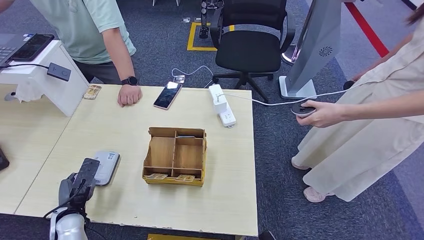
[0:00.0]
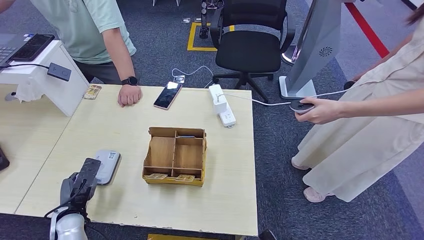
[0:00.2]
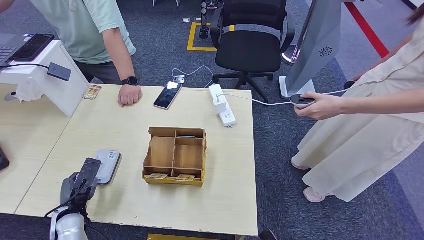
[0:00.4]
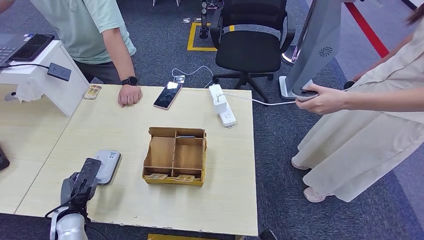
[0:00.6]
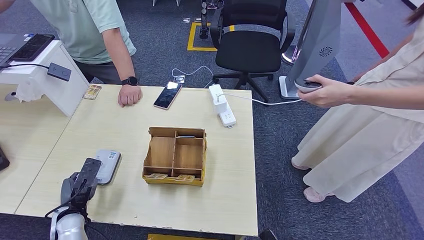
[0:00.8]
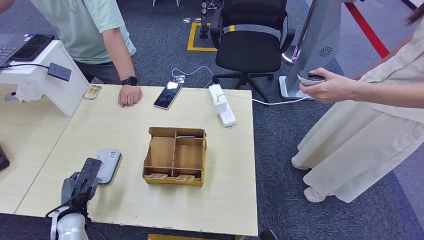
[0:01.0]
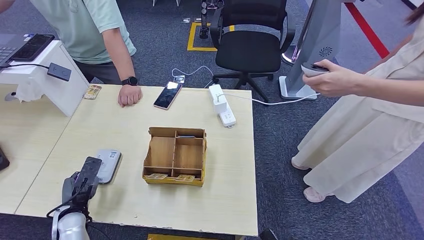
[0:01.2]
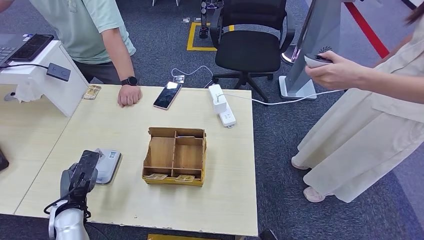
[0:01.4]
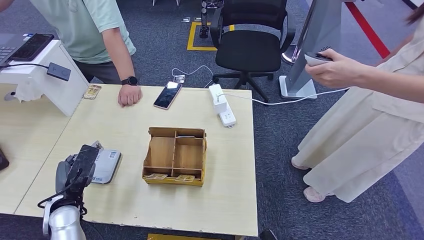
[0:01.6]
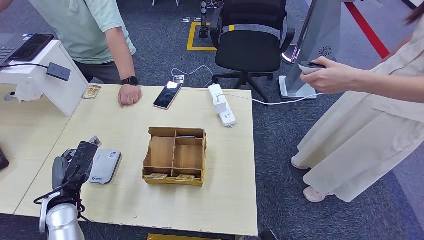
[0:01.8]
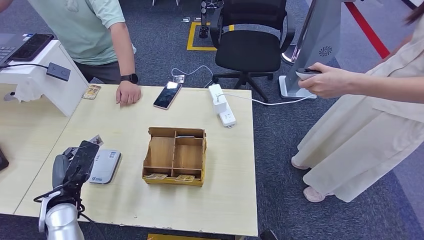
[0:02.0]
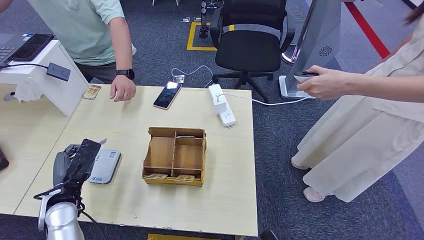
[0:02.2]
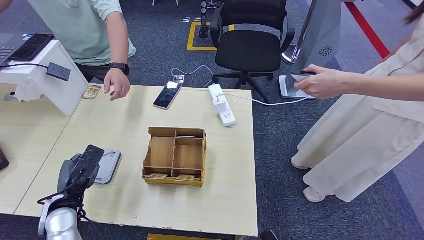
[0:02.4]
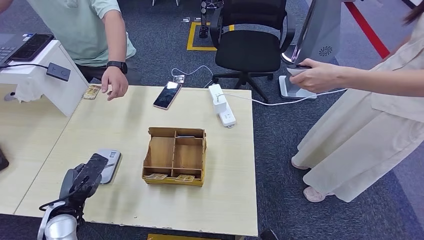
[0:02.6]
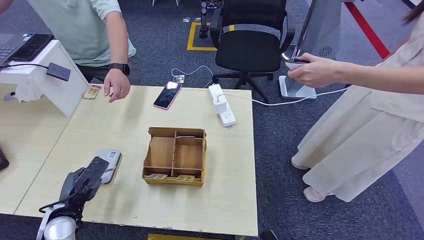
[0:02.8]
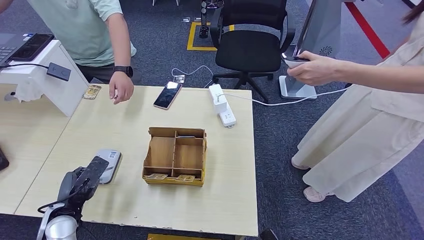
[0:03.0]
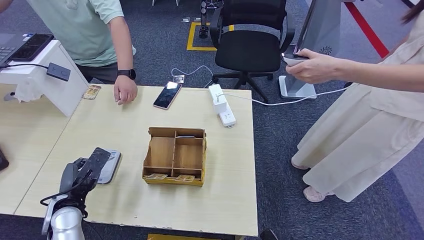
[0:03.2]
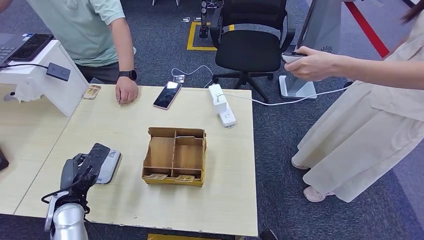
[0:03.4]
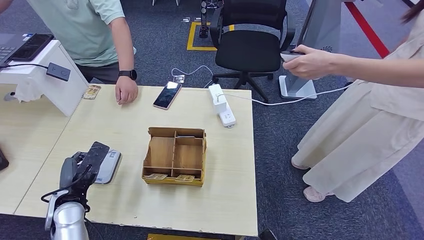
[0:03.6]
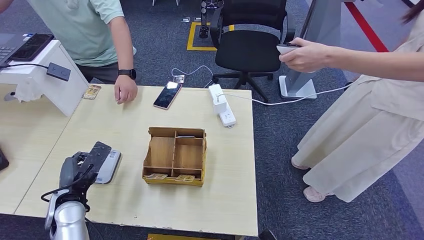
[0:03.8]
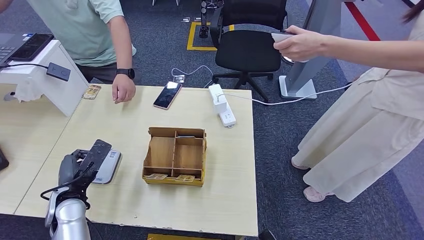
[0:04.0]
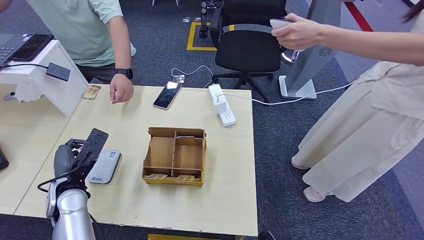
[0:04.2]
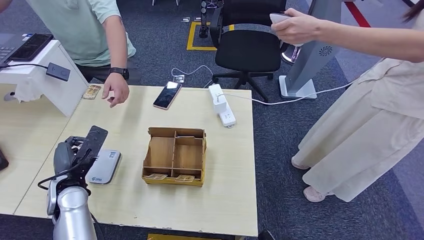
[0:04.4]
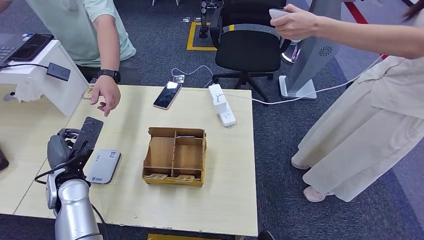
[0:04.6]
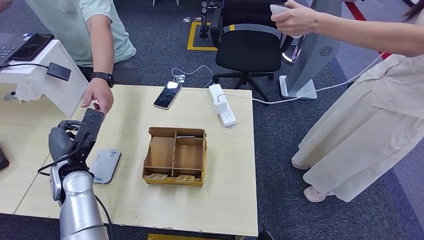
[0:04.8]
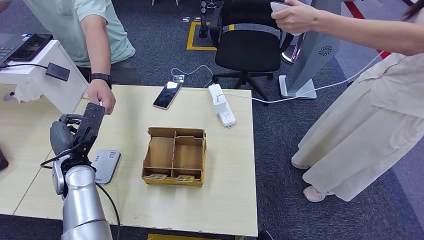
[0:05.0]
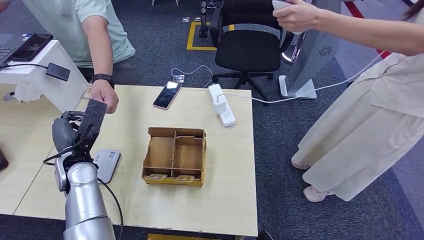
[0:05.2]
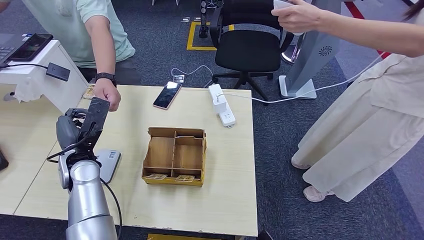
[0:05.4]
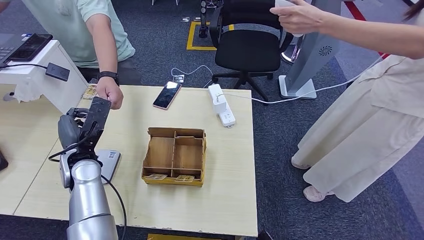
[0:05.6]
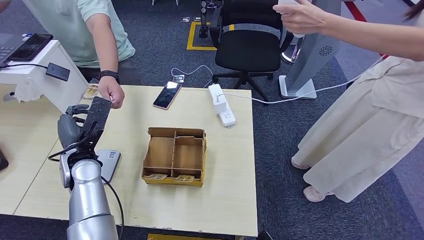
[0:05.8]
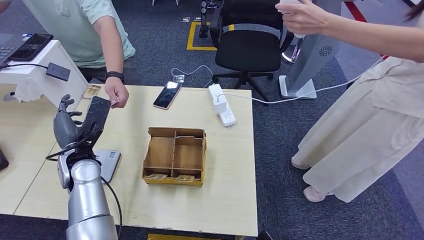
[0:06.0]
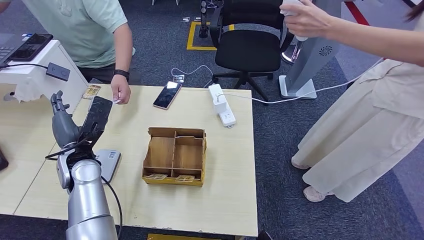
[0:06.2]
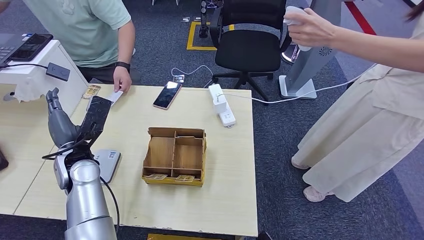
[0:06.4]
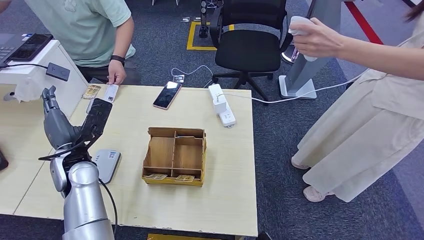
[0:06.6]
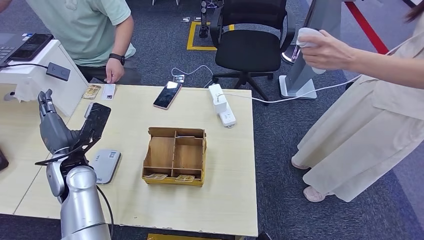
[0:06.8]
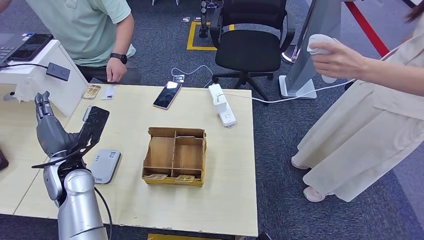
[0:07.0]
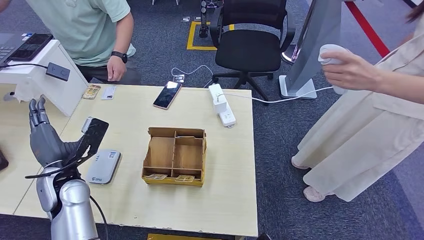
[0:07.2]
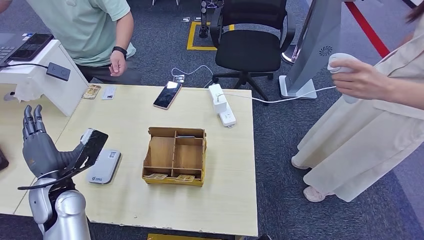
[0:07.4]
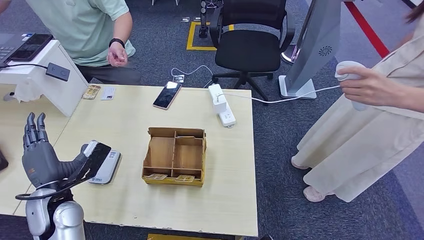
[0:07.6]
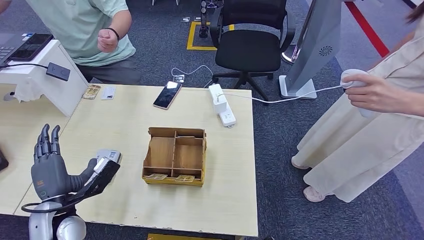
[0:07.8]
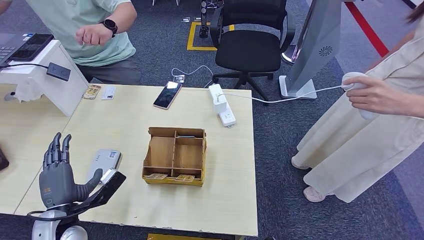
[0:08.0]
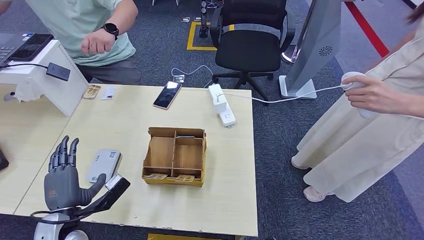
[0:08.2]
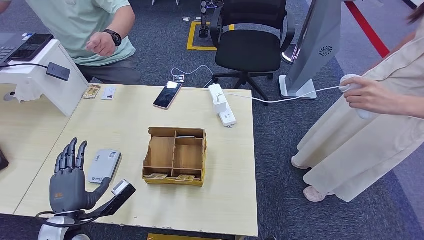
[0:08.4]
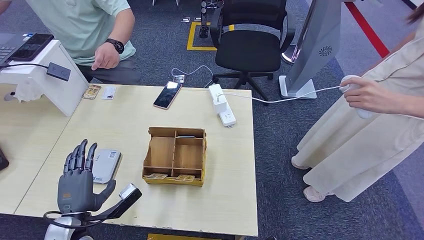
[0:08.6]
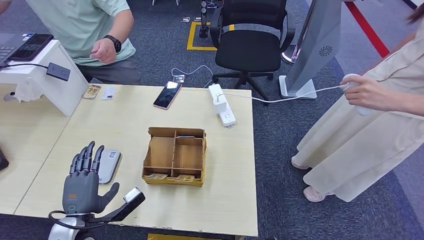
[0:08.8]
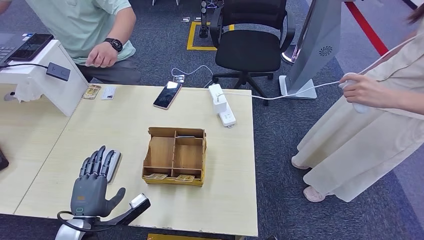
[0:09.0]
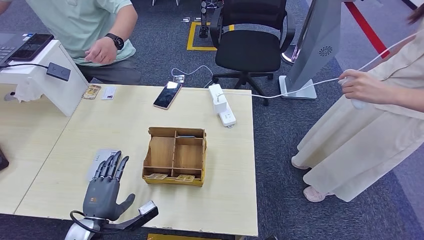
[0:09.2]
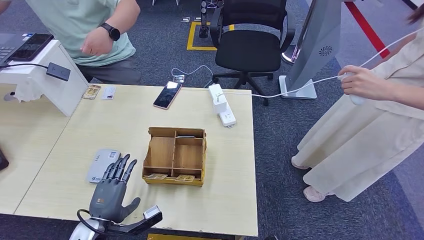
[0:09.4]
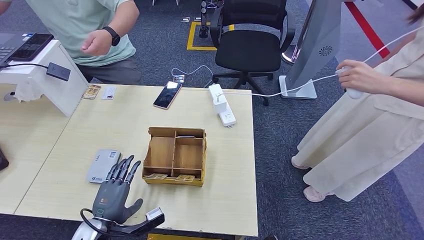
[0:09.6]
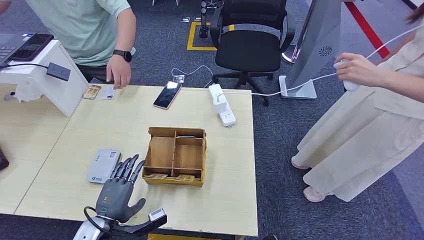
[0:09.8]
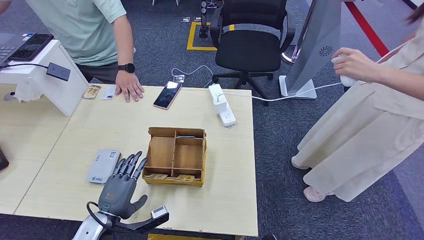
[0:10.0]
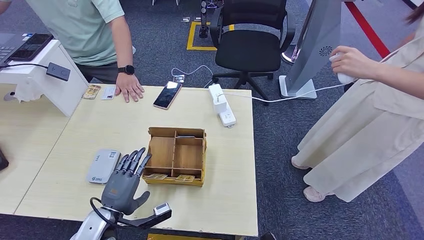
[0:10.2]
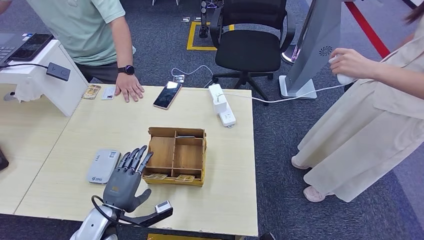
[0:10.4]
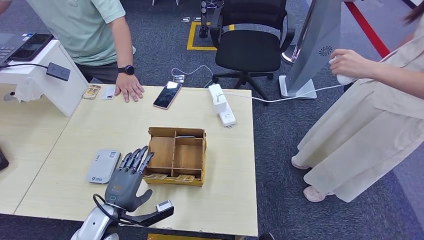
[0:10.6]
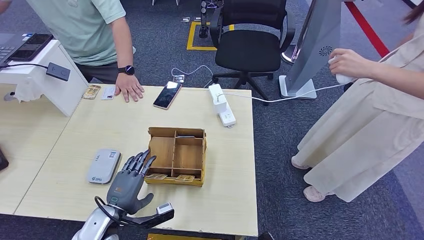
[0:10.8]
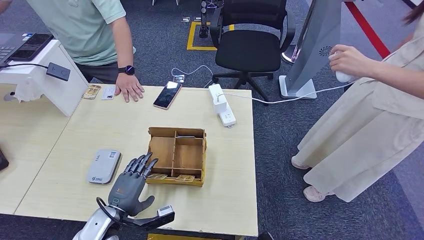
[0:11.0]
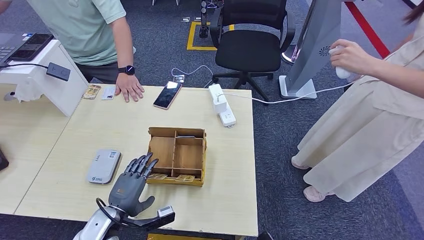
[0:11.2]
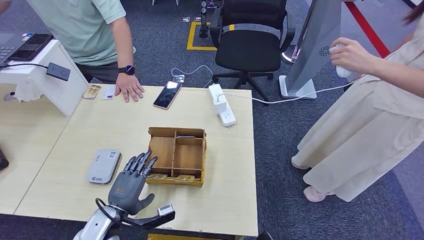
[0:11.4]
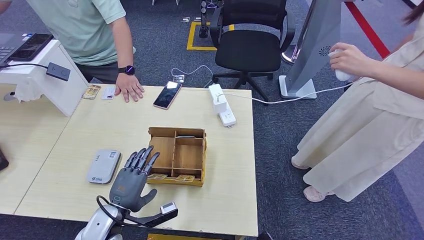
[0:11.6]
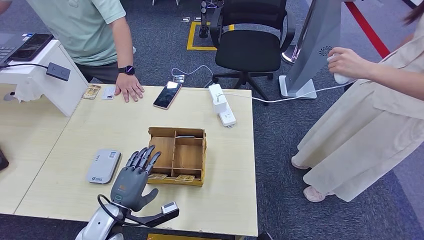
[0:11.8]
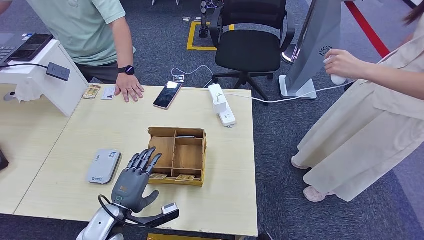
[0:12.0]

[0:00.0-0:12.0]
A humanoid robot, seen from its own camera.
Step, 0:01.2 to 0:06.0: Hand the ID card to the person.
0:00.0 to 0:01.6: The left hand shifts by roughly 5 cm.
0:01.6 to 0:03.0: The hands move only a little.
0:03.0 to 0:04.4: The left hand goes approximately 10 cm forward and upward.
0:04.4 to 0:06.0: The left hand heads forward, covering about 5 cm.
0:07.6 to 0:09.0: The left hand is displaced downward and backward by approximately 10 cm.
0:09.0 to 0:10.4: The hands stay close to where they were, moving slightly.
0:10.4 to 0:12.0: The hands make only small movements.

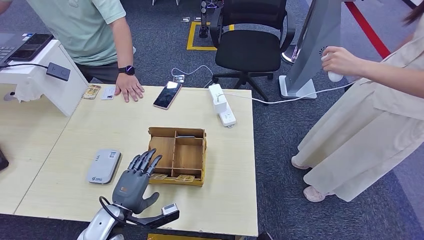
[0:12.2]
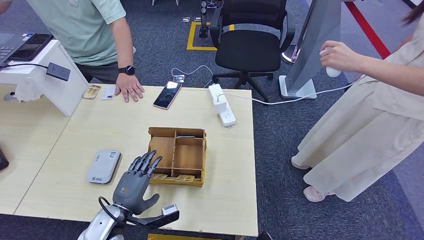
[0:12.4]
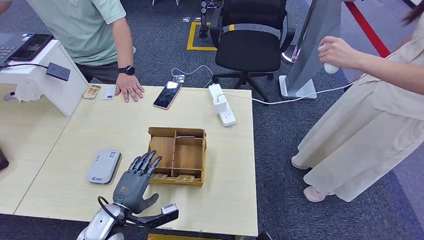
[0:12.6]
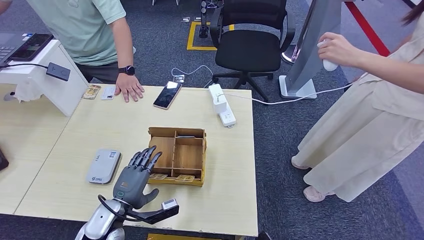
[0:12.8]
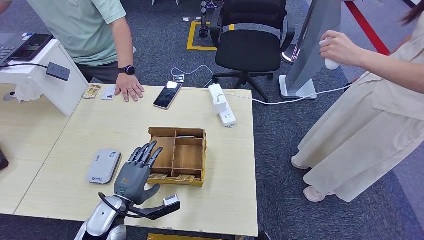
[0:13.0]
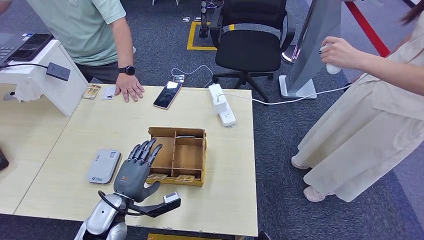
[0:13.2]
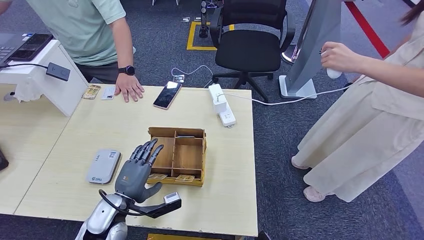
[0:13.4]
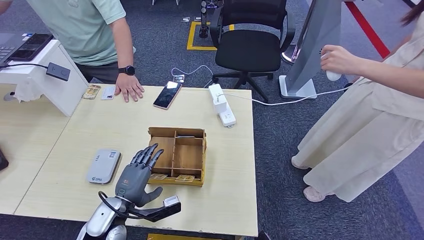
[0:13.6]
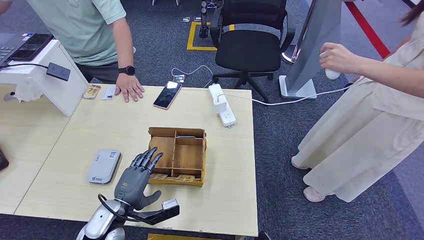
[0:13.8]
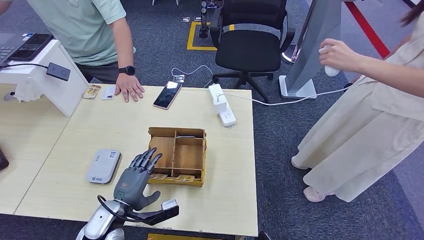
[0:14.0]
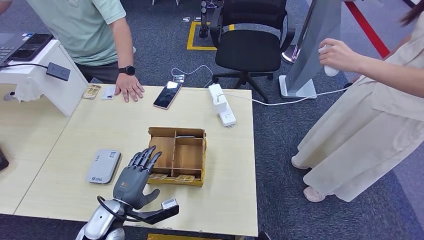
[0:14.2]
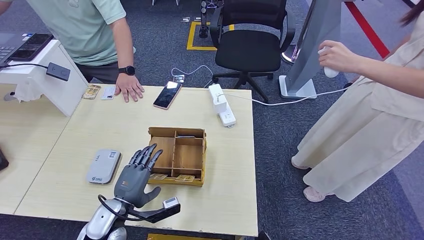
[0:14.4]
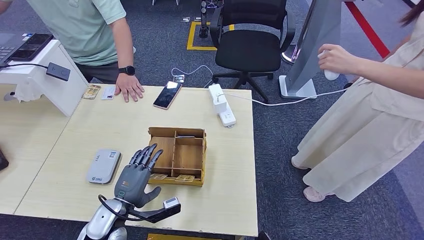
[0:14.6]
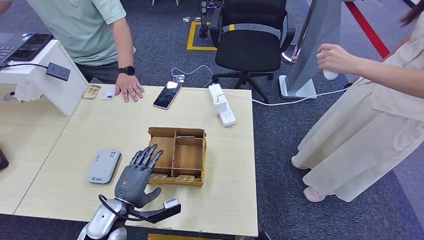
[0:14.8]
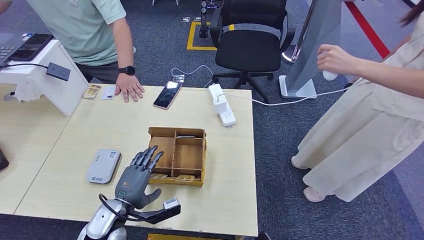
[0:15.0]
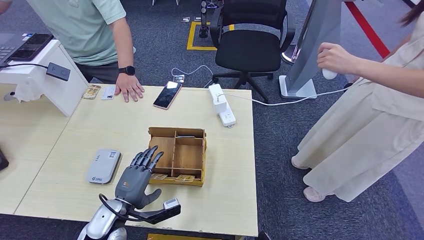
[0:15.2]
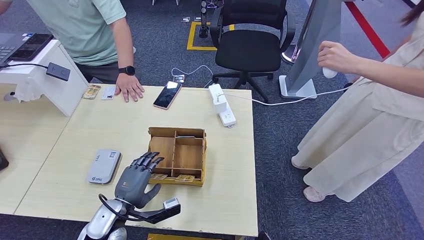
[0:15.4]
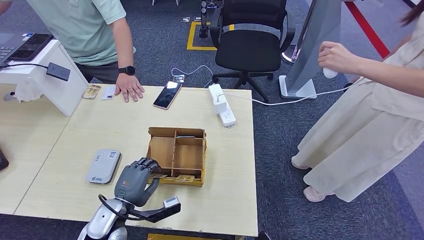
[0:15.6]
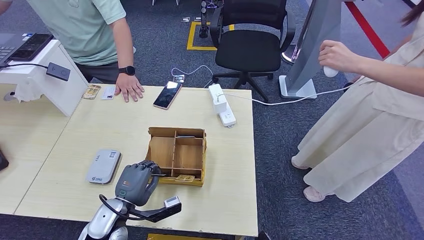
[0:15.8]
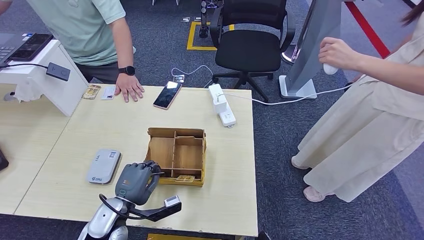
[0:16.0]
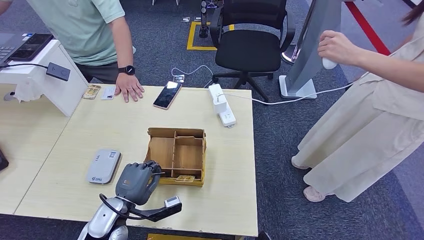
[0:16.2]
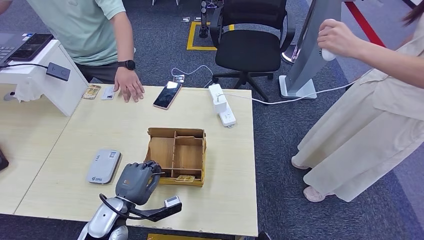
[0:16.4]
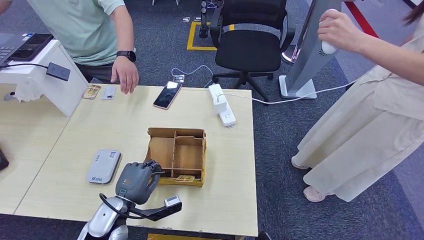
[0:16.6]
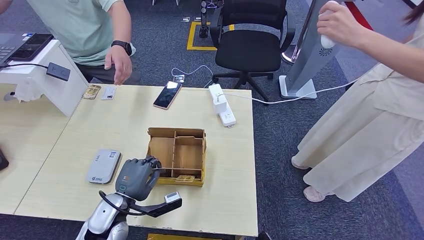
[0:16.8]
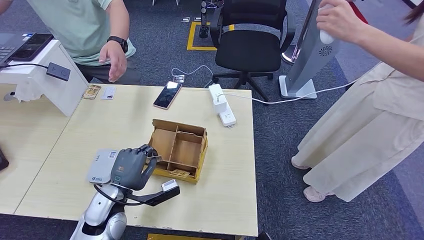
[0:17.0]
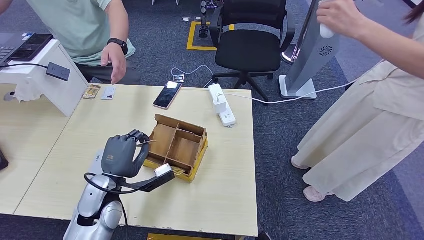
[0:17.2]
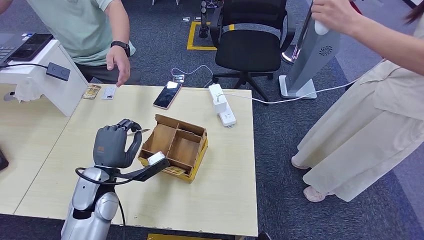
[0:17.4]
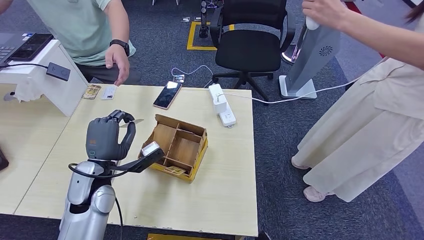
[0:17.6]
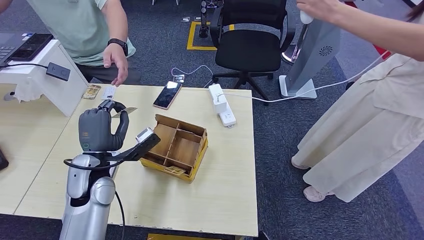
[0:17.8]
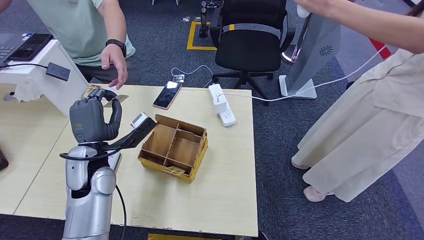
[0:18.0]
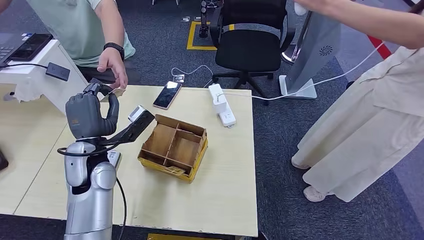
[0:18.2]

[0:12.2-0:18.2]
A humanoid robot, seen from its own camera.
Step, 0:12.2 to 0:16.4: Pick up the room key from the key card box.
Step, 0:16.8 to 0:18.0: Hand the room key to the person.
0:12.2 to 0:15.2: The hands make only small movements.
0:15.2 to 0:16.6: Neither hand changes place.
